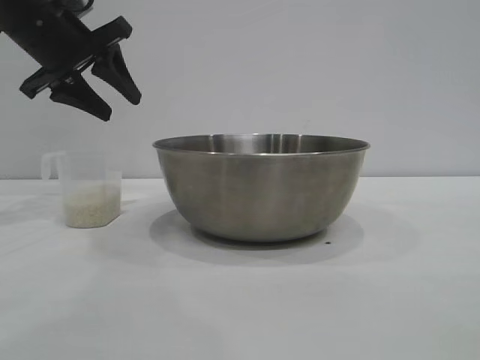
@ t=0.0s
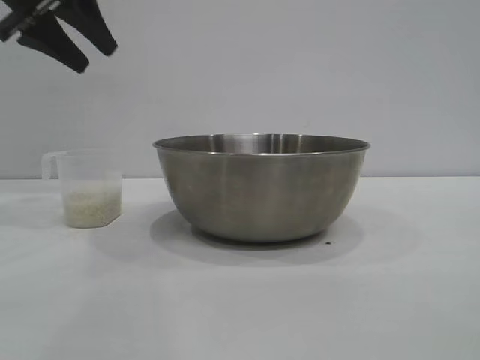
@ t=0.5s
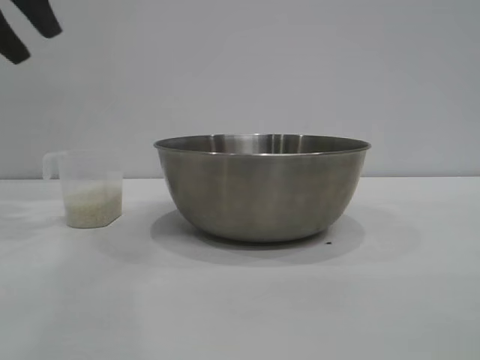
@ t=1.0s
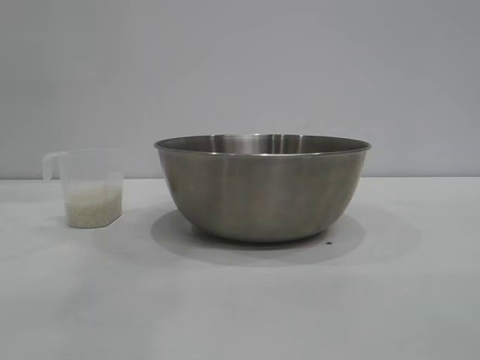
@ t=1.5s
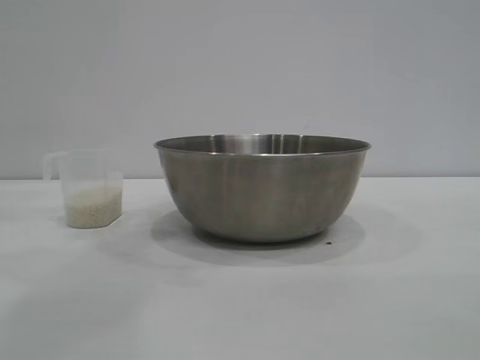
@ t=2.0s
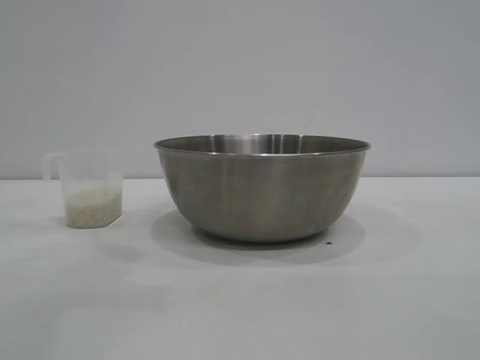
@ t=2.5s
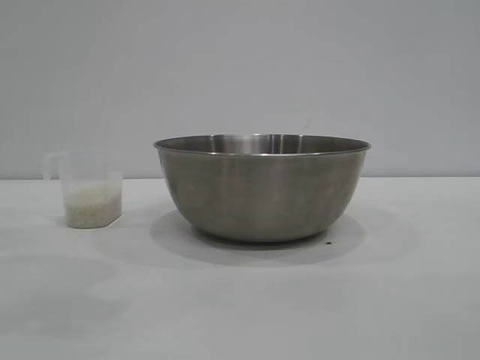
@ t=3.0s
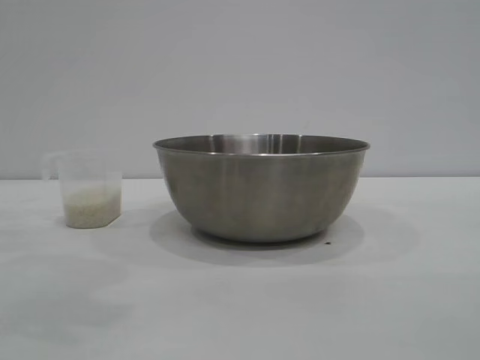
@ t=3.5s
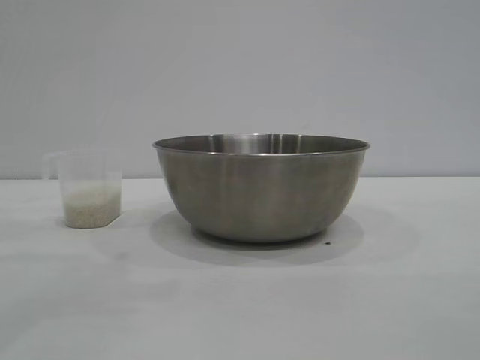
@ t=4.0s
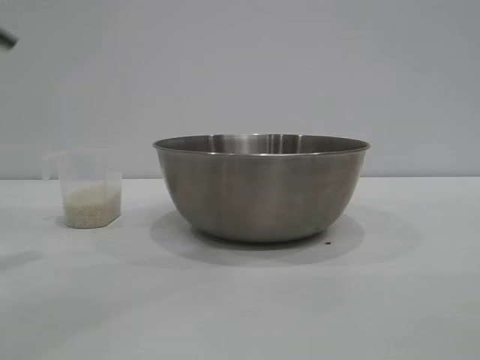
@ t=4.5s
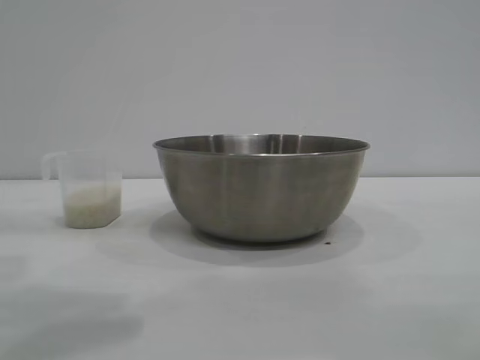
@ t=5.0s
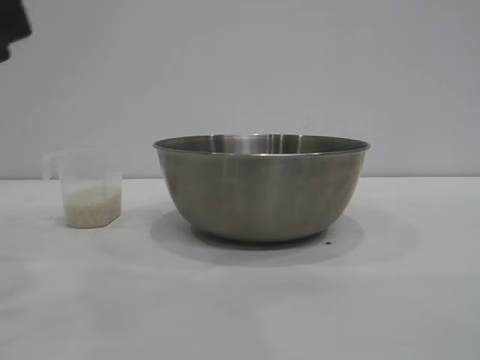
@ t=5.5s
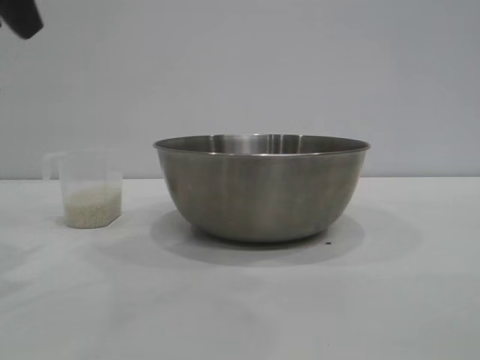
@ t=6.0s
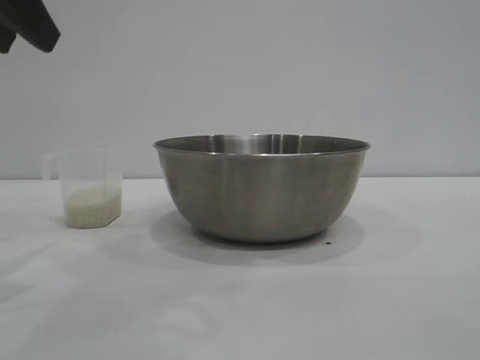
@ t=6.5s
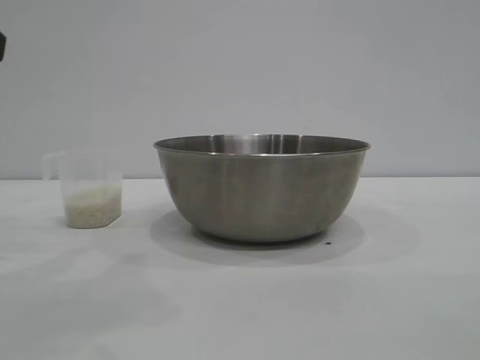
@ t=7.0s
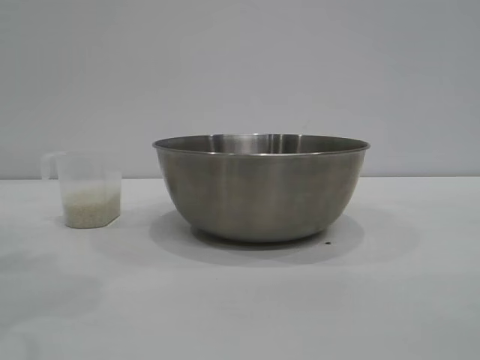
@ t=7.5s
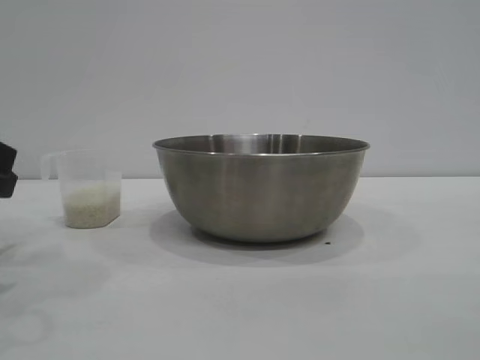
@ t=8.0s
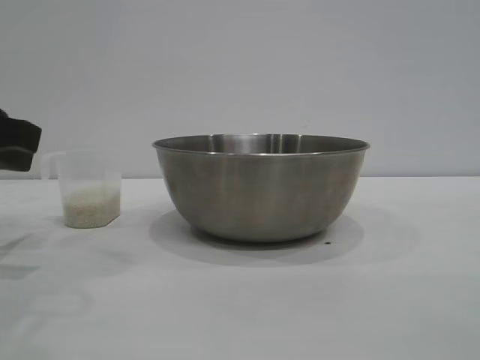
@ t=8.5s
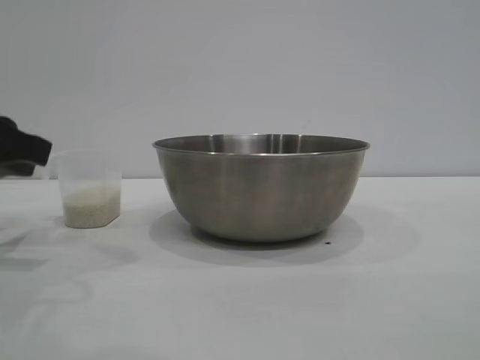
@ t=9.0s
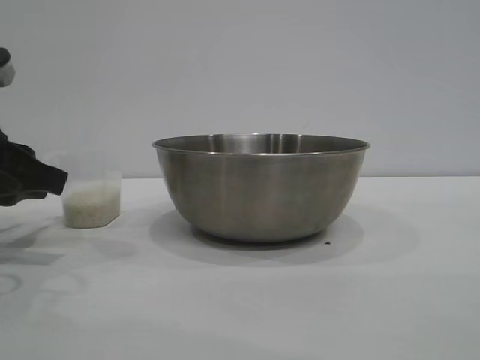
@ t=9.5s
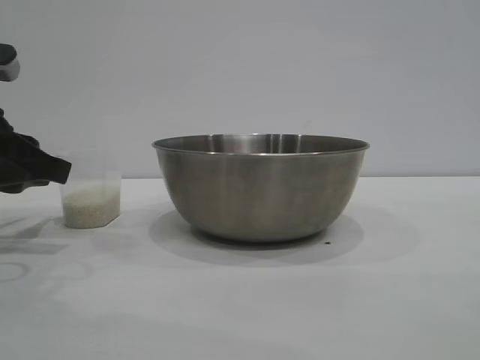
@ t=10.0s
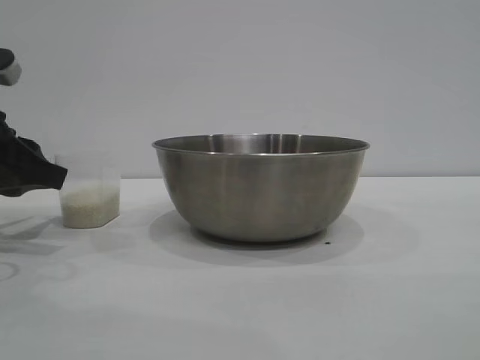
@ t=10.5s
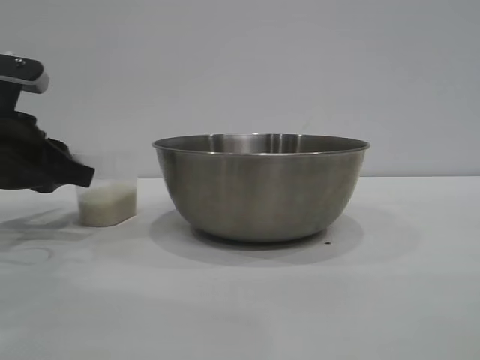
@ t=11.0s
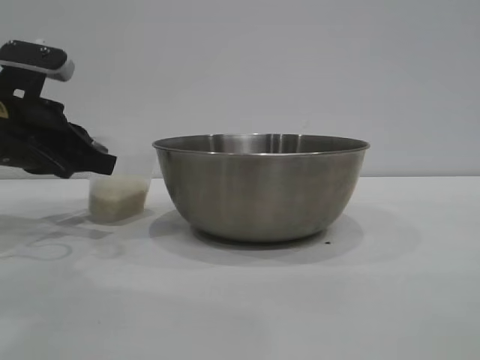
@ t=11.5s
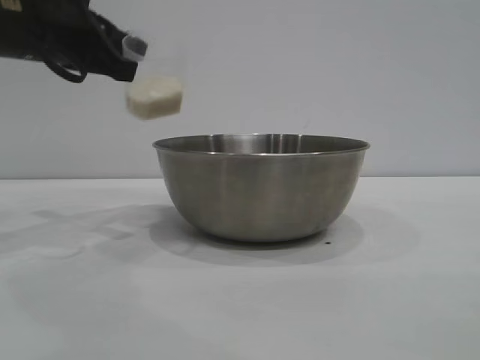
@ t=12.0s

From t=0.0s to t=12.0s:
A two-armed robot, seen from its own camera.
Task of the whole recording: the right gripper grasp the rice container and place it in the center of the table, the left gripper grasp the rice scoop and pour the rice into the rice container.
Step, from t=0.0s to t=11.5s: Pick up the cup with rice in it with the left gripper.

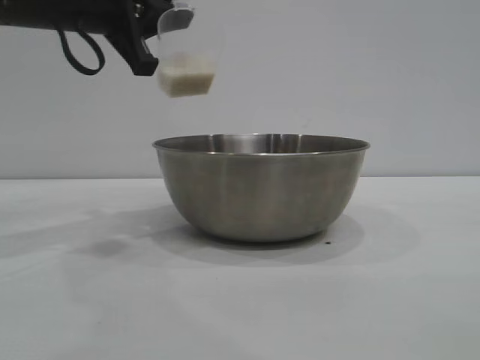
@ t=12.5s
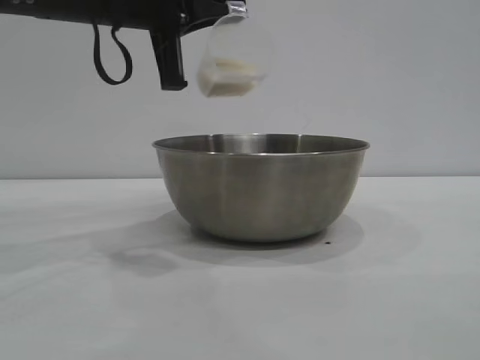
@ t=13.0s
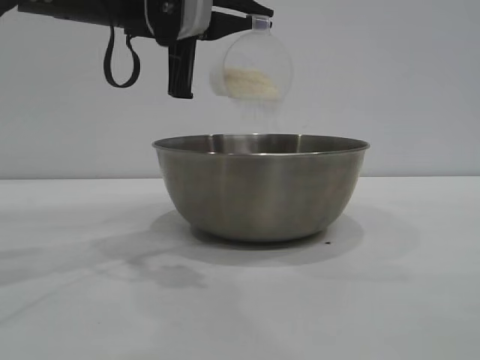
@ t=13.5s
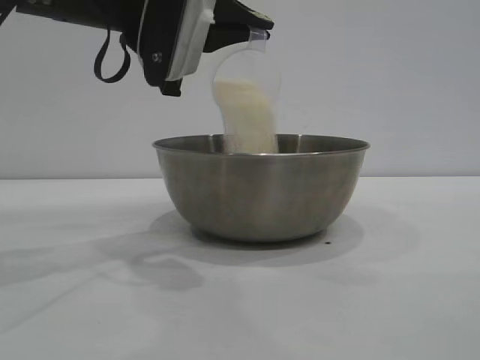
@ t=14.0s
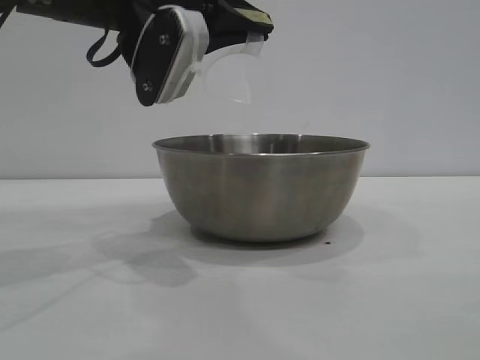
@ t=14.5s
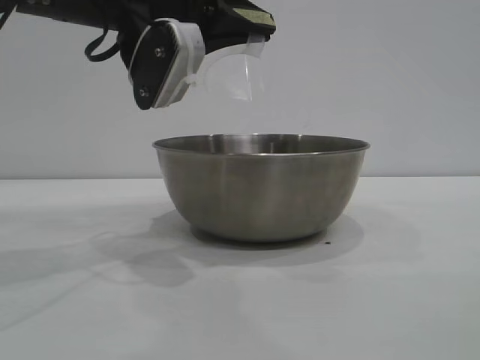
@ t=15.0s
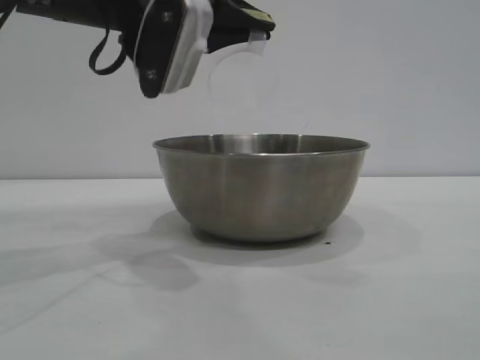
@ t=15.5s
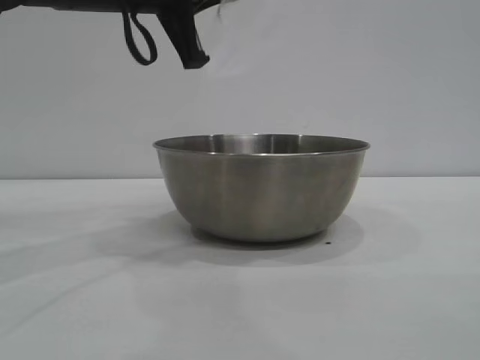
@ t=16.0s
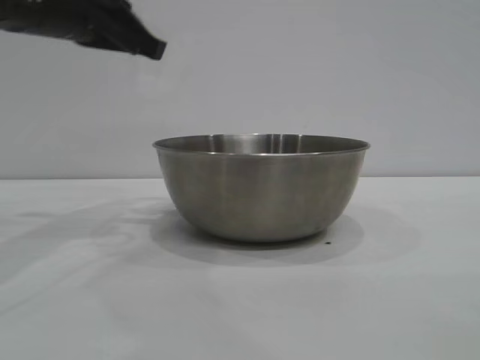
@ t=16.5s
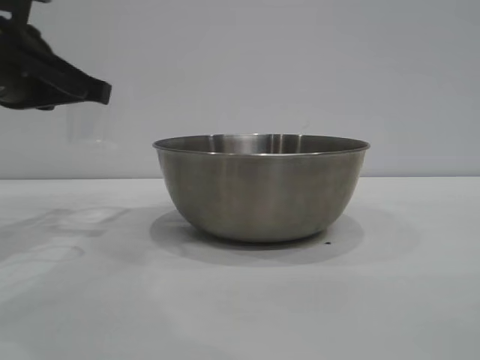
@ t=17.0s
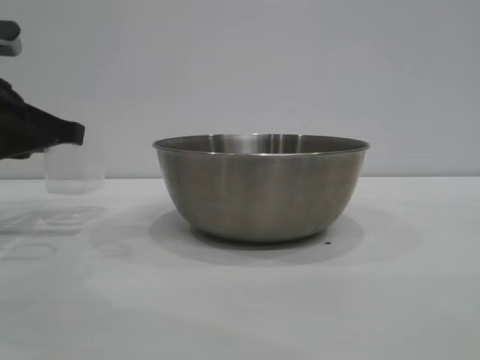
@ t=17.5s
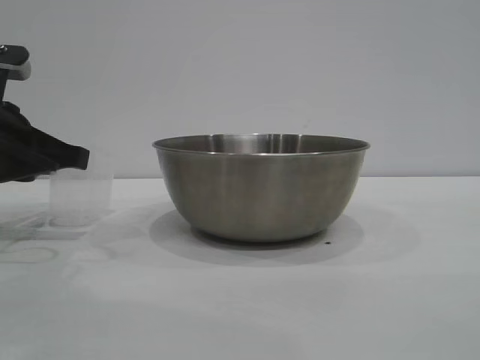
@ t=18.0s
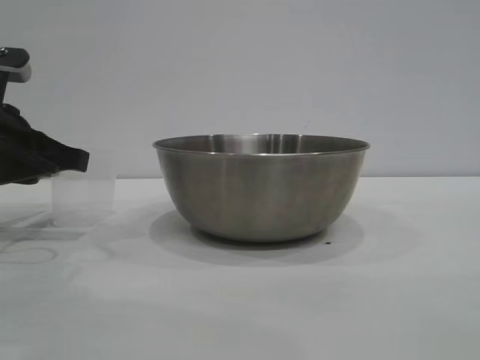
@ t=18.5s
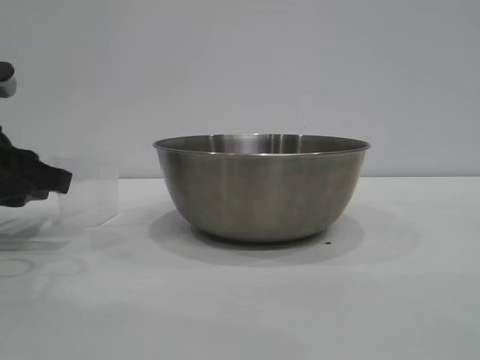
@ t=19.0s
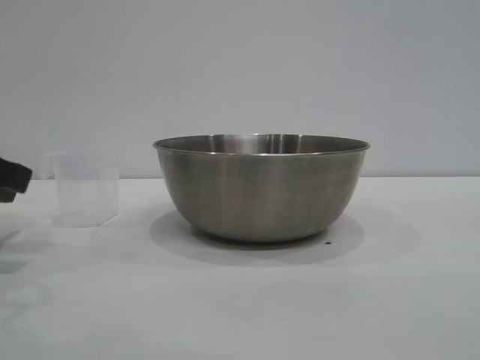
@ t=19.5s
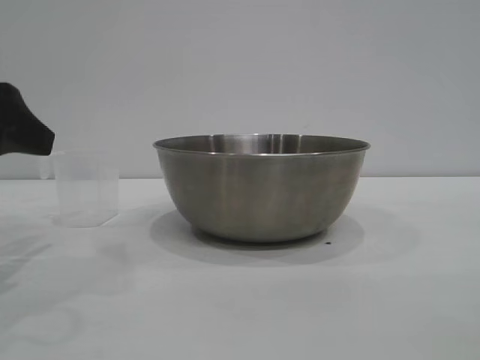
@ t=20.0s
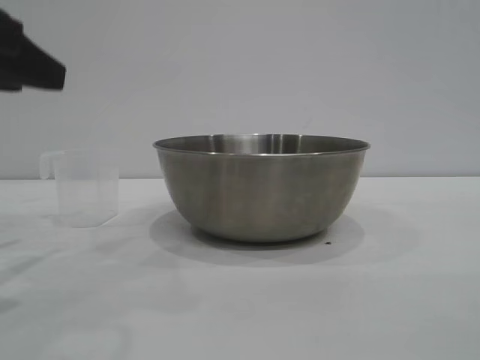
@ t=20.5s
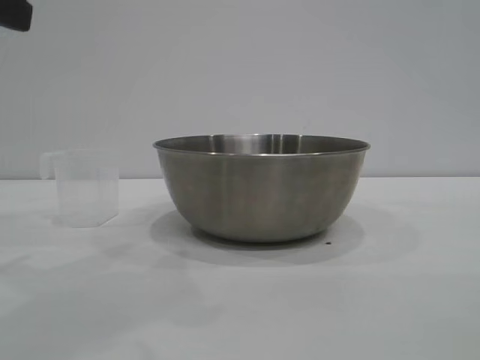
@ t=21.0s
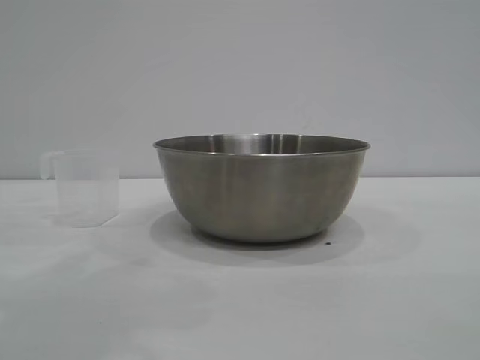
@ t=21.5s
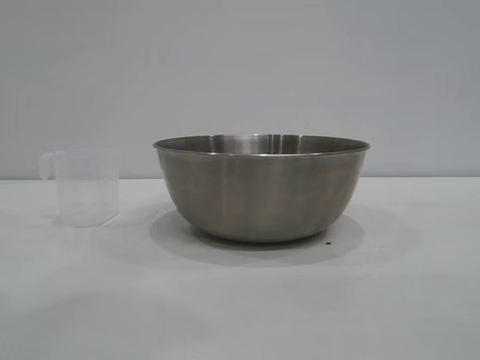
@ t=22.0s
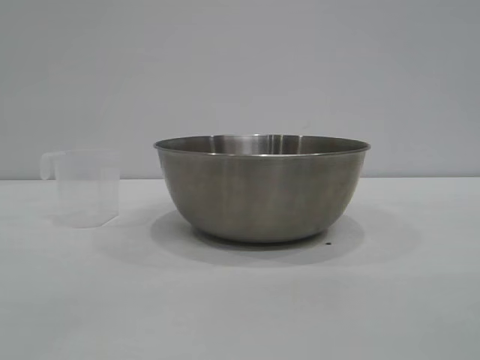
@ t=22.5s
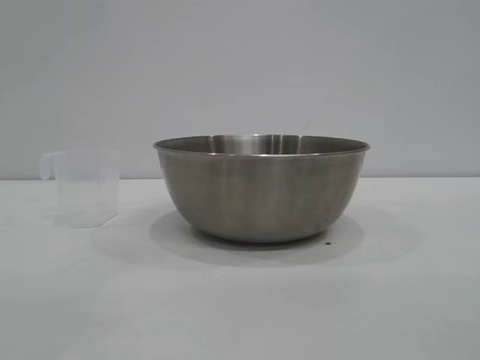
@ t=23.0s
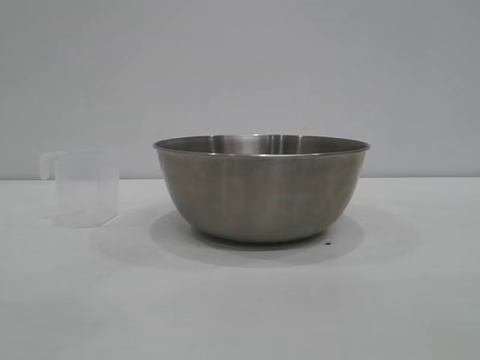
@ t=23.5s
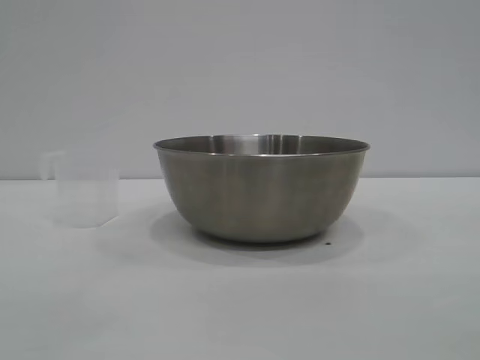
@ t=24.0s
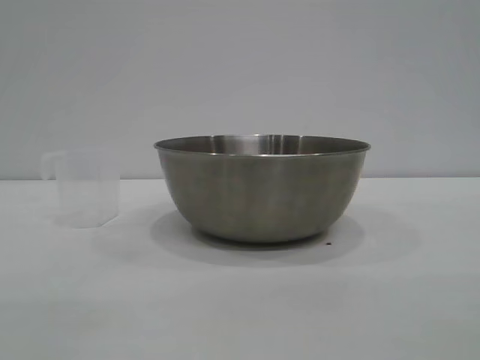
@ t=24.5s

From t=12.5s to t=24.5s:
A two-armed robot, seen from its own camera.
Task of the whole recording: the right gripper grasp the rice container and place it in the center of the table, the left gripper grasp the rice scoop and pour the rice into the rice container.
Step, from t=12.5s to t=16.0s: Pour the rice from the cup into the bowl with the left gripper.
Step, from t=16.5s to t=20.0s: Place the cup on the table with the left gripper.
